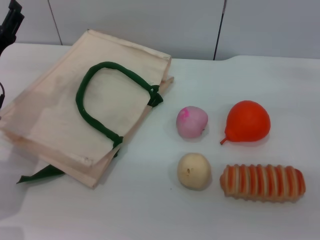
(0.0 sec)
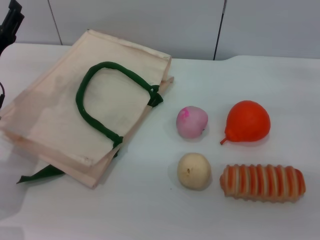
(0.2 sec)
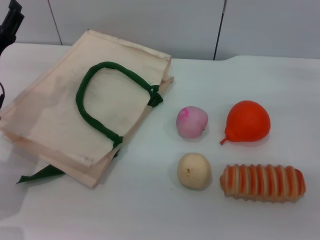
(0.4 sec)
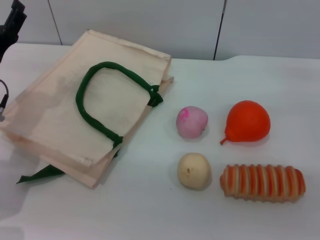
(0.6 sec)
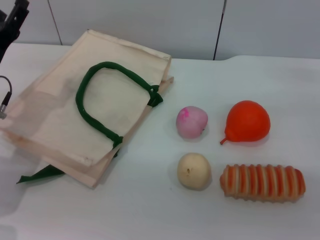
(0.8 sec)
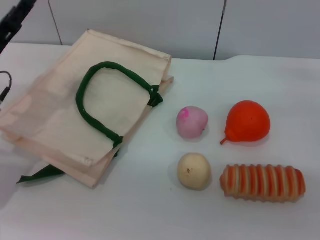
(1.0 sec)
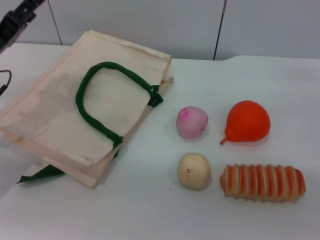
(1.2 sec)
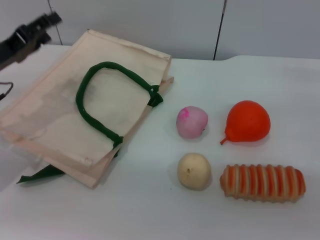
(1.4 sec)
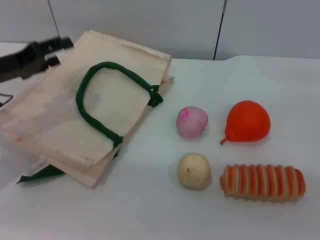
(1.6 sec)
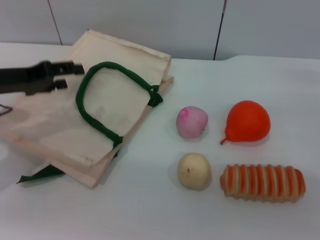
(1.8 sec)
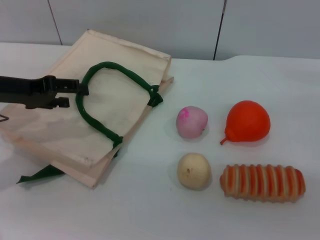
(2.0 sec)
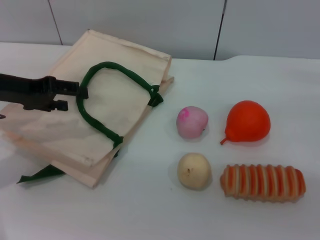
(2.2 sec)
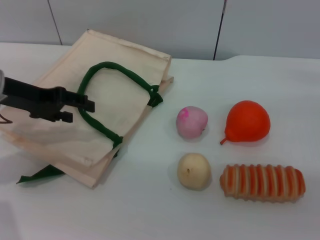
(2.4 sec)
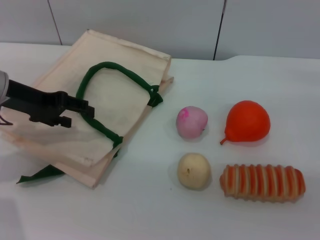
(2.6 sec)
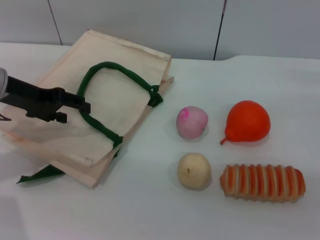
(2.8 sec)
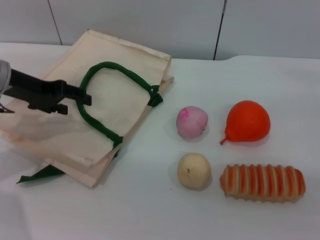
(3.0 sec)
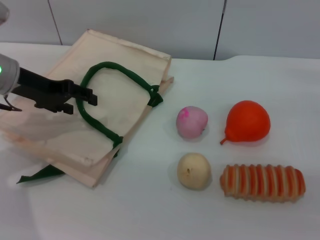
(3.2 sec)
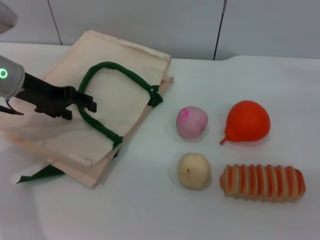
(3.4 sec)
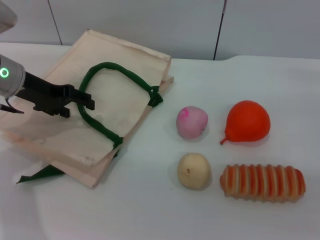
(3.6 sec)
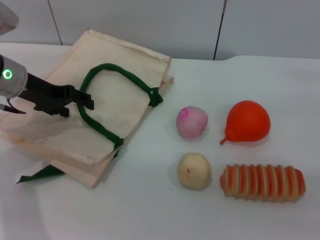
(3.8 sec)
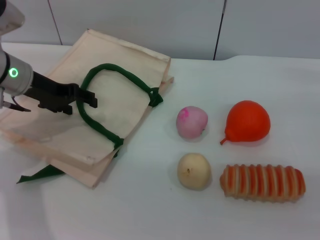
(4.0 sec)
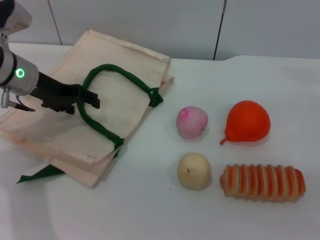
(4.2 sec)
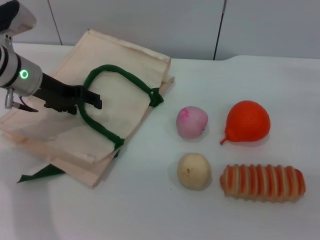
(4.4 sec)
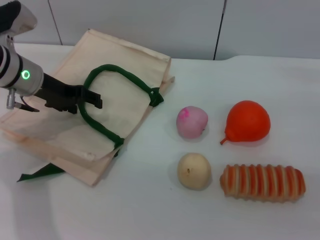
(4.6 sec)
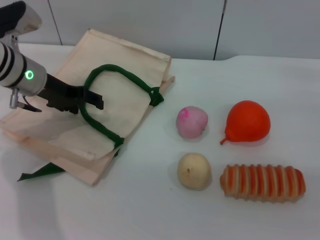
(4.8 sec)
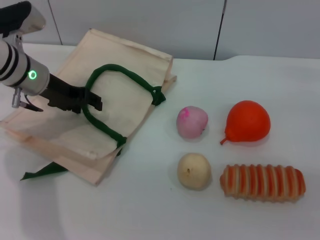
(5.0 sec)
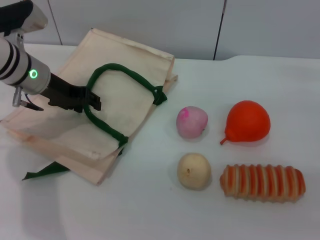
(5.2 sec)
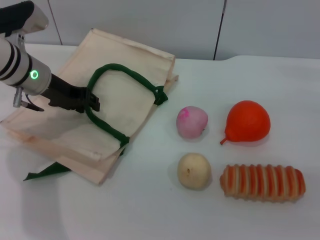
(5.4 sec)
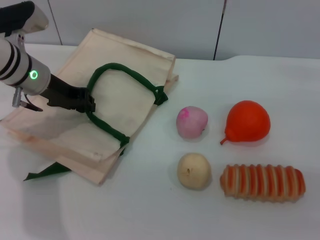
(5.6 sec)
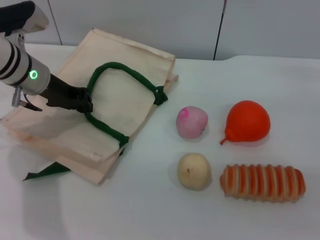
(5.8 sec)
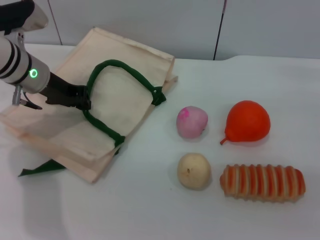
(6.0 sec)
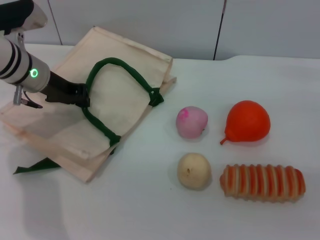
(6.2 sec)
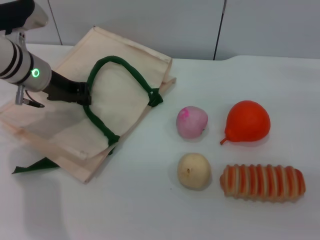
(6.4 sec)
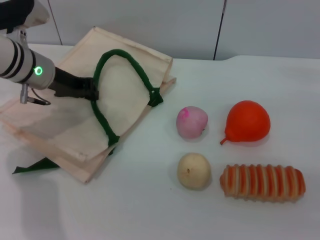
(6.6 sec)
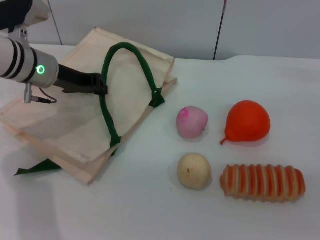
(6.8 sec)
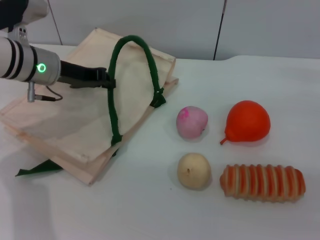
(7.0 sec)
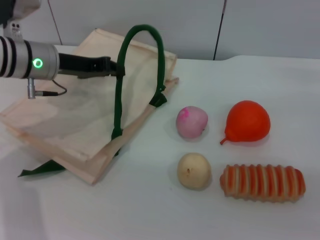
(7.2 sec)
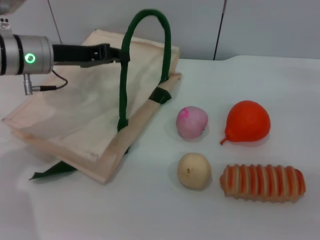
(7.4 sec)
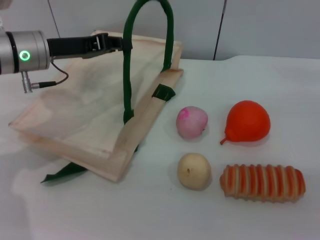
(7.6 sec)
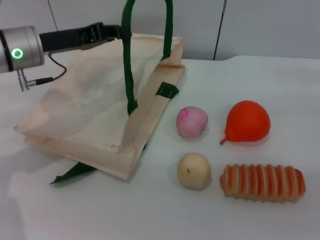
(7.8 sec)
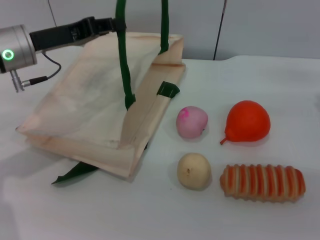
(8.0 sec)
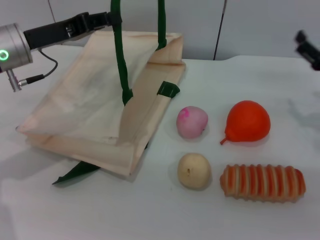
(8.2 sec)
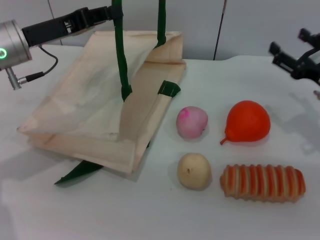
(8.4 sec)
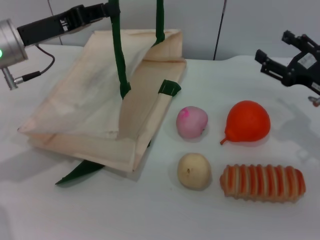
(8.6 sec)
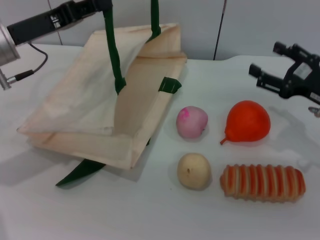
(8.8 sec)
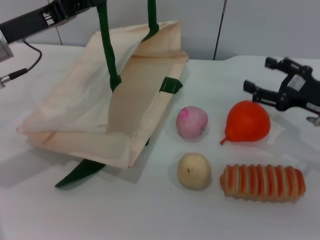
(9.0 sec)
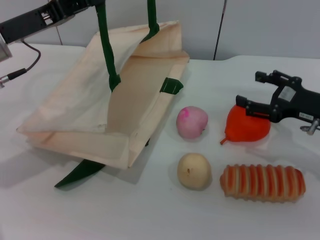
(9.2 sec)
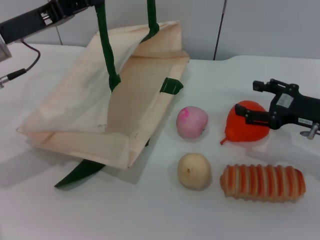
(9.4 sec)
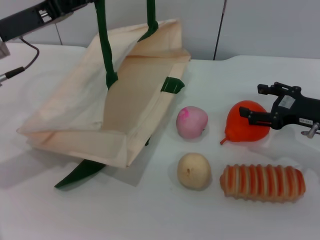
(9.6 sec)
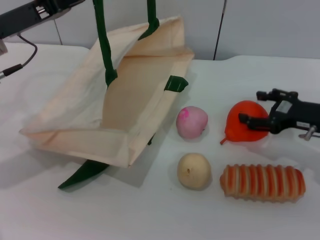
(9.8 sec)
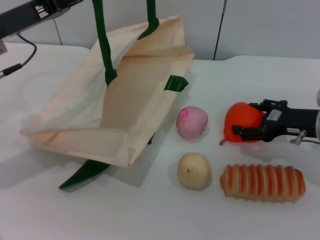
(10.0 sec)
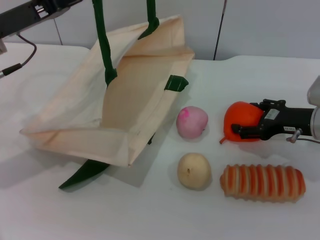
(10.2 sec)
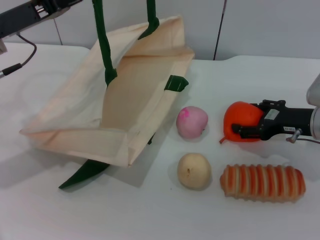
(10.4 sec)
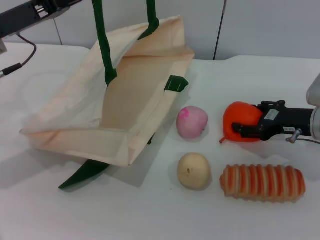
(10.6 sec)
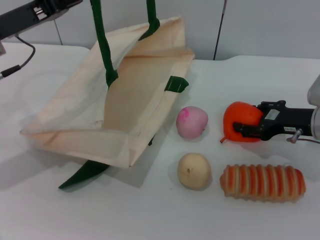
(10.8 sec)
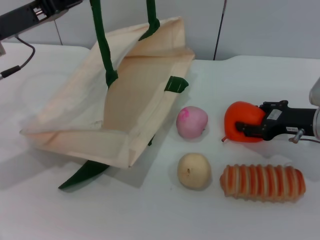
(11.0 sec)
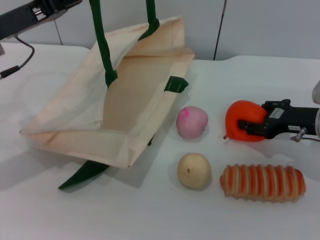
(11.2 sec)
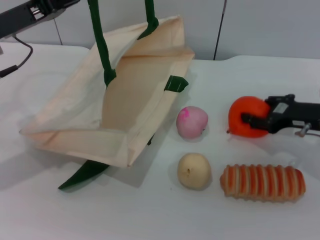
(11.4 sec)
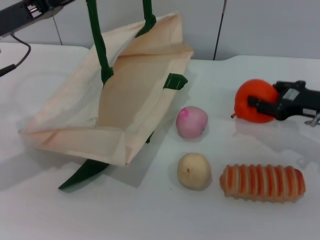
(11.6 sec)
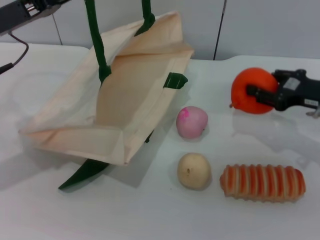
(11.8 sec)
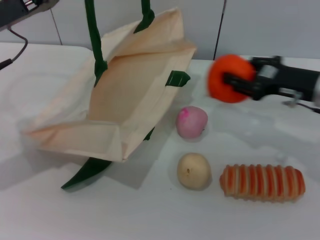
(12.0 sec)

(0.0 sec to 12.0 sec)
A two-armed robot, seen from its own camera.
Task of the whole recording: pick up the orange and peach from the table and place it in the white handbag.
Step, 0.0 sec - 8.0 sec: Lift the woven bag with the left gripper to open it.
Step, 8.2 sec - 11.8 sec: Pick up the orange with the right gripper.
0.0 sec - 1.6 sec: The left gripper is displaced upward by some 5 cm.
3.0 sec - 4.4 sec: The left gripper changes place by some 5 cm.
4.4 sec - 6.0 sec: The left gripper closes up.
7.6 sec - 9.0 sec: The right gripper ends up approximately 5 cm from where it was; the left gripper changes place by roughly 5 cm.
10.4 sec - 12.0 sec: The right gripper ends up about 5 cm from where it was, and closes.

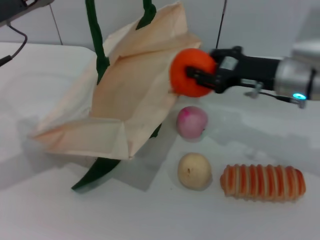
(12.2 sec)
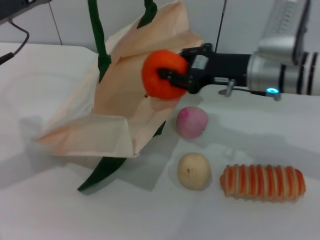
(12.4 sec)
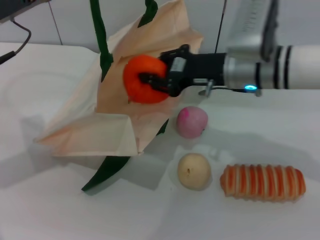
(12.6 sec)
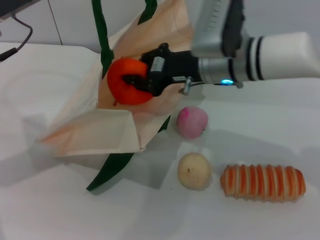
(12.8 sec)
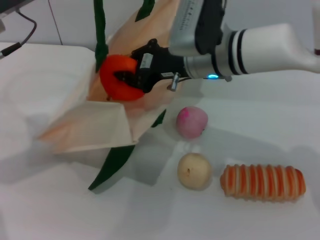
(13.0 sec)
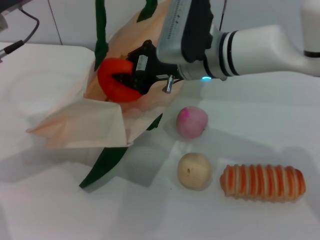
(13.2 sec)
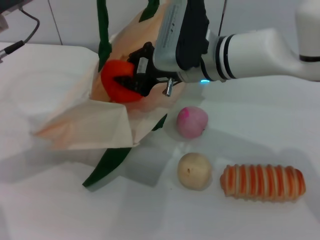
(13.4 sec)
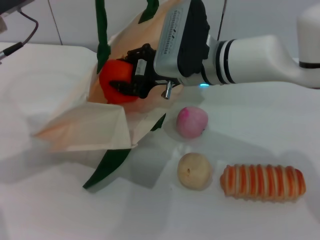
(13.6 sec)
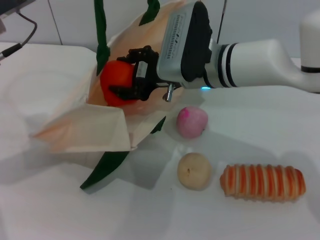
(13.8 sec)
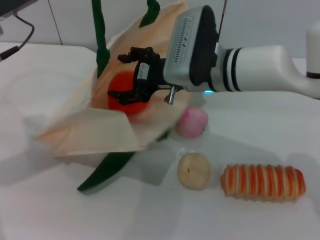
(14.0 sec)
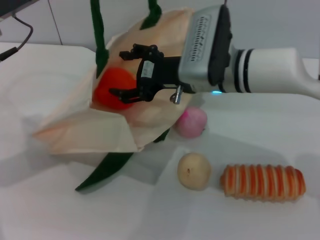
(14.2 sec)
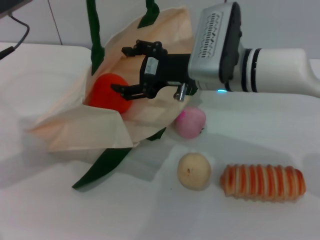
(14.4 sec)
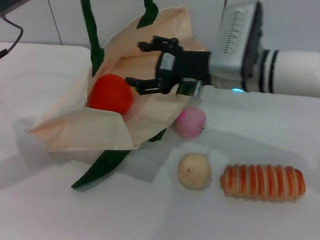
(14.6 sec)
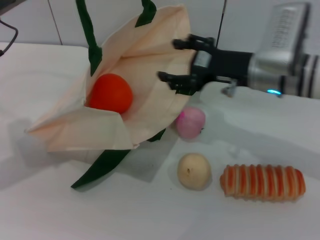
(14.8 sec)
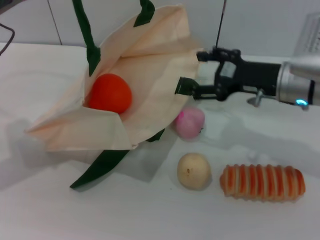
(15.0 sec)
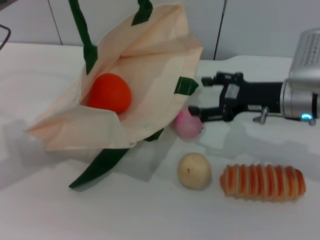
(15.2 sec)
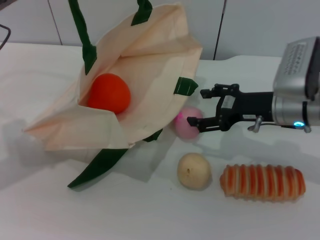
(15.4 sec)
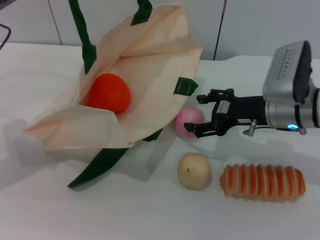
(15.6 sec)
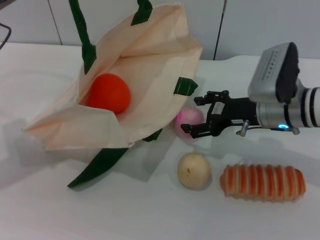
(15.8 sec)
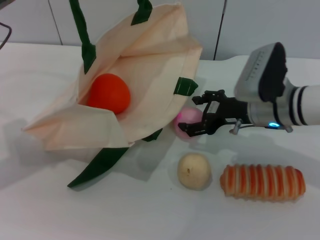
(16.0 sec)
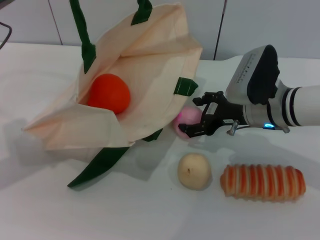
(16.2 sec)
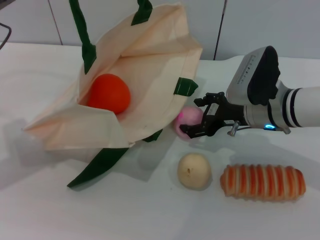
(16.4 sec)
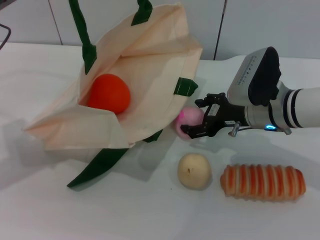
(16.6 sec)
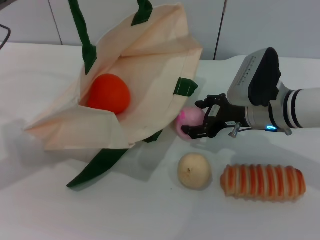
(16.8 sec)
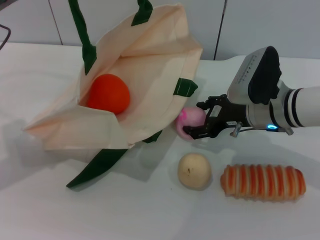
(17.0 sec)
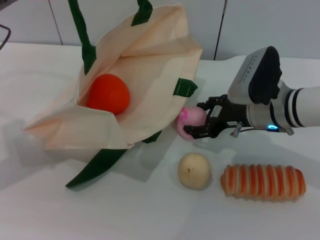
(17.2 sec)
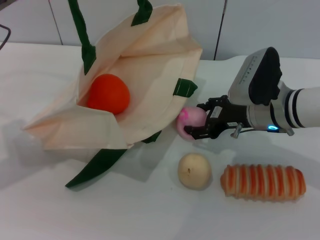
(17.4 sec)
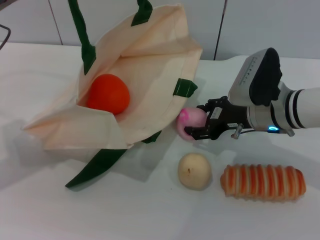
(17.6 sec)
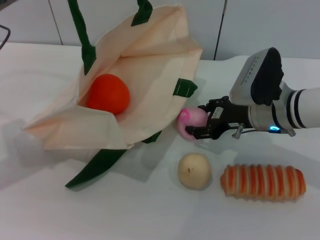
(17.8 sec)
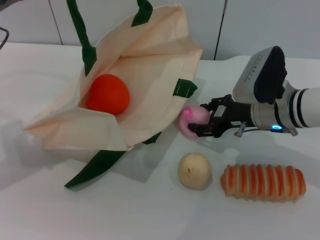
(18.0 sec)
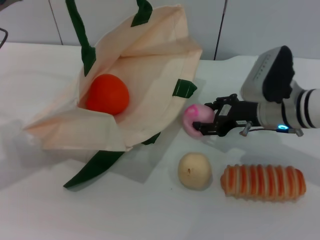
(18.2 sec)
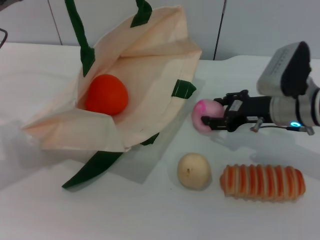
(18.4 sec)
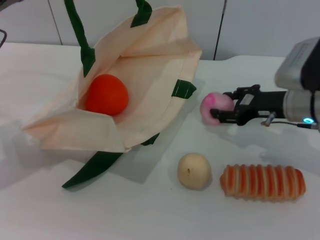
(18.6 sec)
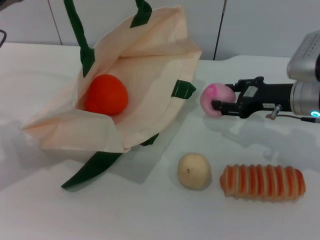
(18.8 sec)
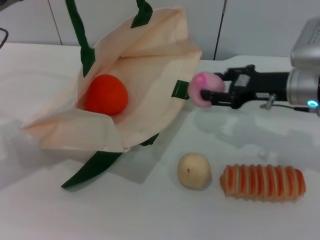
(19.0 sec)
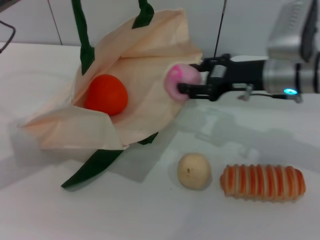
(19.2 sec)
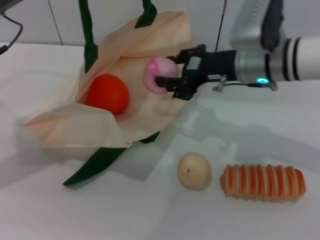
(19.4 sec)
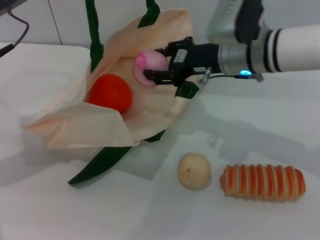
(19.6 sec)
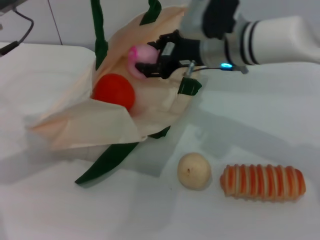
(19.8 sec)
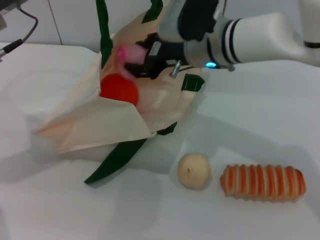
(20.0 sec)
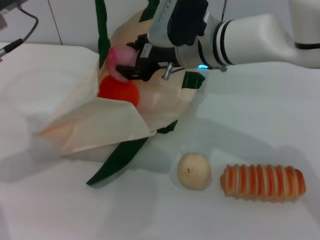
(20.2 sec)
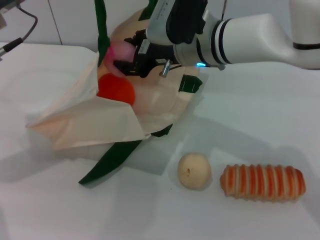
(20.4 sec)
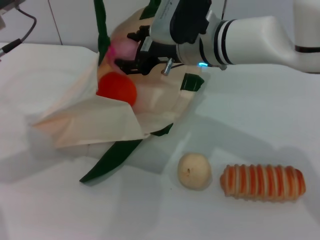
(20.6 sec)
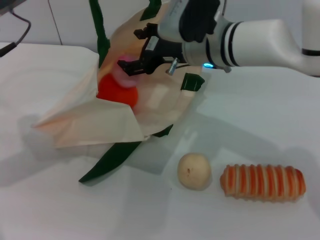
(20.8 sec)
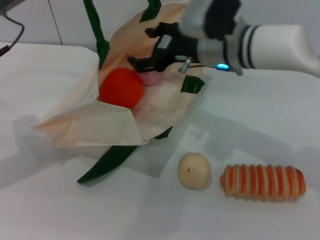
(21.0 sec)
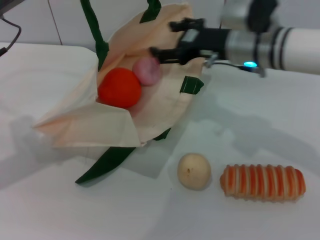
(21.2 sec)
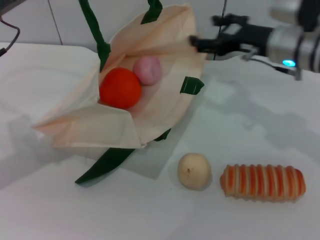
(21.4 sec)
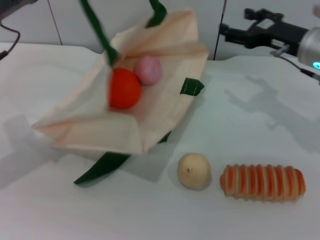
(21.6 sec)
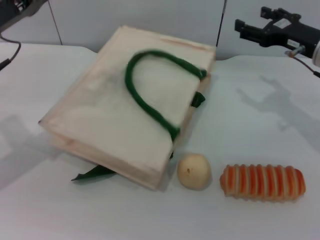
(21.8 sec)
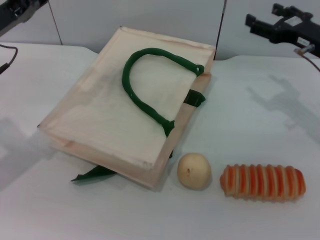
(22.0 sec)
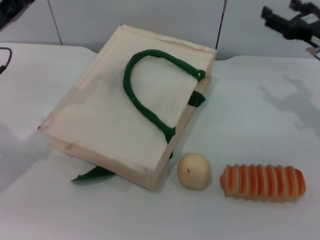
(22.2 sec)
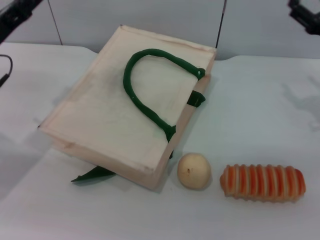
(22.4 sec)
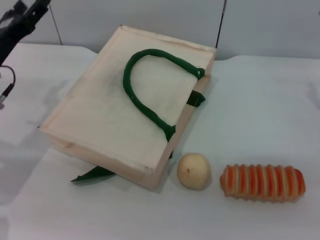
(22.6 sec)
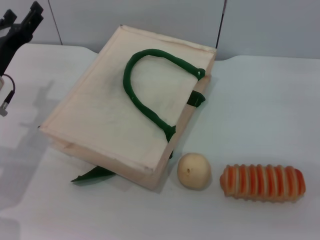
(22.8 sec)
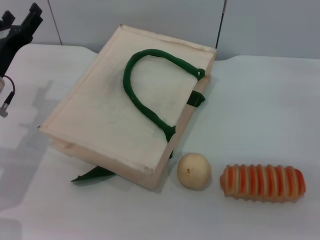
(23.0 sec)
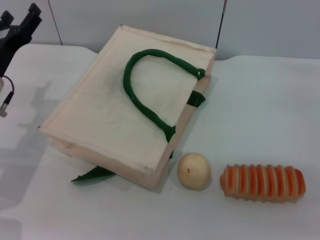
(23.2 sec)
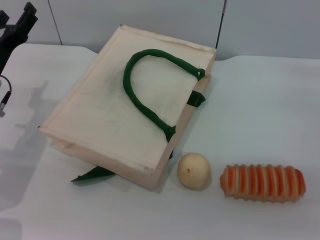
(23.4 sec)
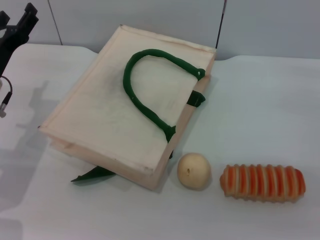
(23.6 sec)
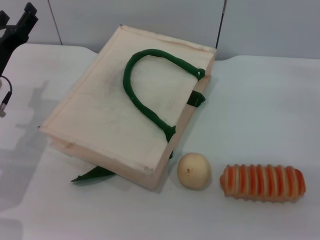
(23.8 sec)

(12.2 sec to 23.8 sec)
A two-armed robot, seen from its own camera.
Task of the whole recording: pick up the orange and peach from the table and place it in the white handbag.
Step, 12.2 sec - 14.6 sec: Place the orange into the woven bag with the right gripper.
Step, 14.8 sec - 19.0 sec: Pick up the peach with the right gripper.
Step, 19.2 sec - 21.2 sec: Place the peach into the woven bag with the right gripper.
Step, 21.4 sec - 22.4 sec: Lower the woven bag with the left gripper to close it.
12.2 sec - 13.6 sec: The right gripper heads to the left, covering roughly 15 cm.
13.6 sec - 15.0 sec: The right gripper heads to the right, covering approximately 15 cm, and opens up.
15.0 sec - 16.6 sec: The right gripper changes place by some 5 cm.
16.6 sec - 18.0 sec: Both grippers stay put.
18.0 sec - 19.4 sec: The right gripper shifts roughly 5 cm upward.
19.4 sec - 21.0 sec: The right gripper is displaced to the left by some 5 cm.
21.0 sec - 22.4 sec: The left gripper heads downward, covering some 5 cm, and opens its fingers, while the right gripper travels to the right by roughly 20 cm.
22.4 sec - 23.8 sec: The right gripper moves approximately 5 cm.
